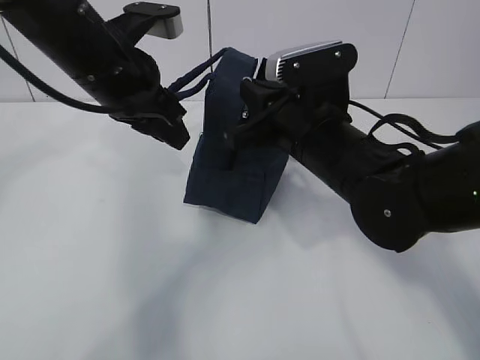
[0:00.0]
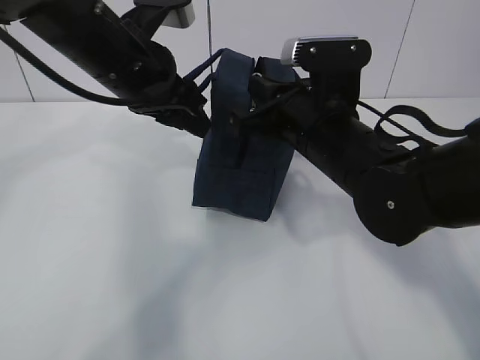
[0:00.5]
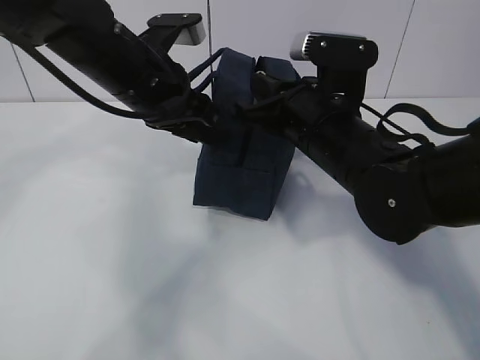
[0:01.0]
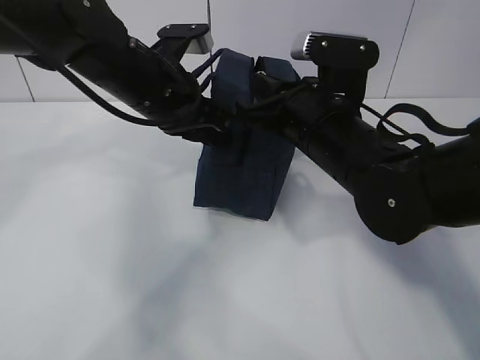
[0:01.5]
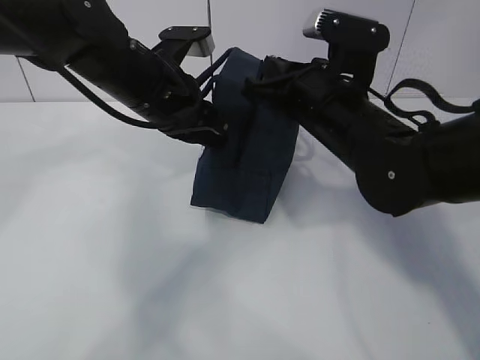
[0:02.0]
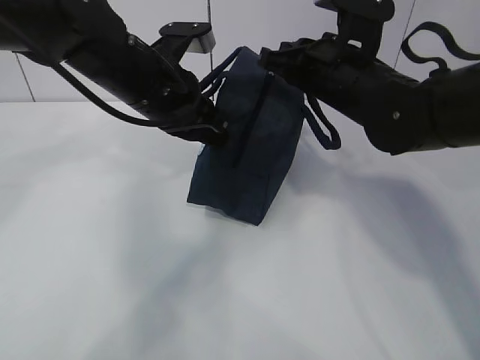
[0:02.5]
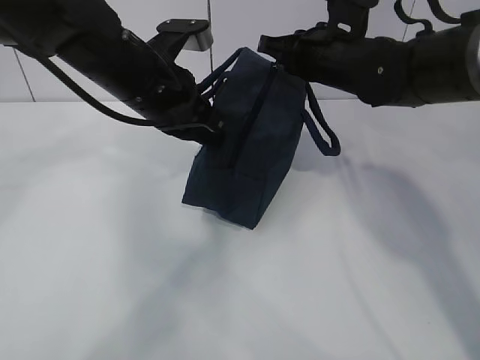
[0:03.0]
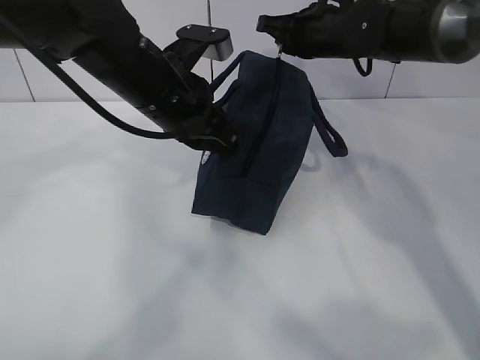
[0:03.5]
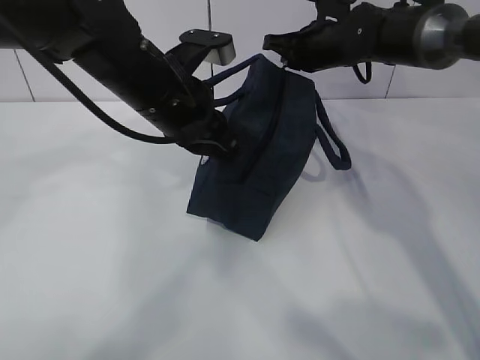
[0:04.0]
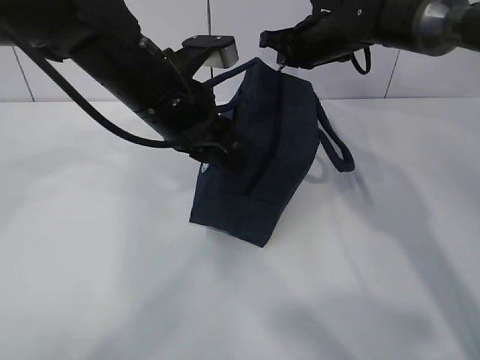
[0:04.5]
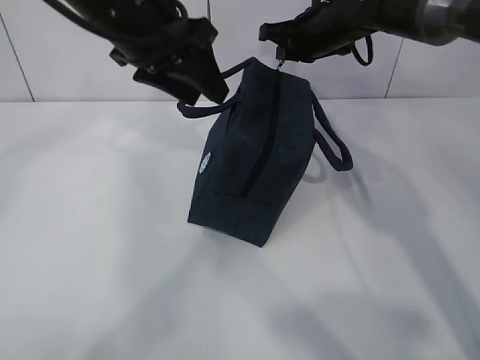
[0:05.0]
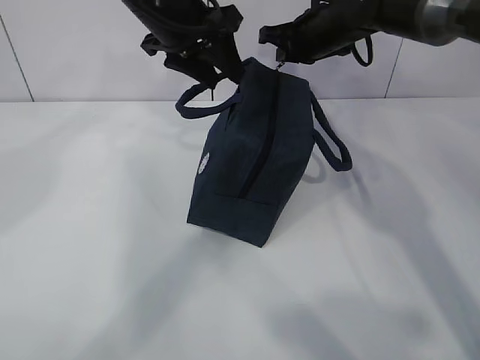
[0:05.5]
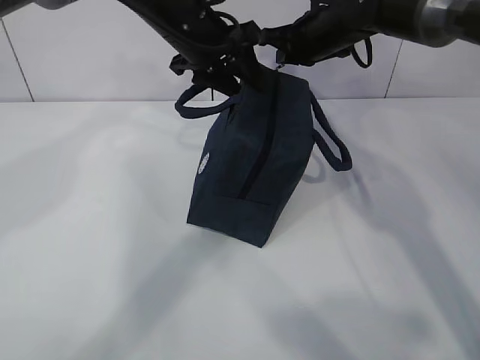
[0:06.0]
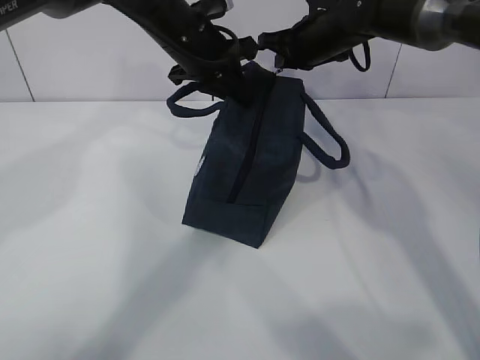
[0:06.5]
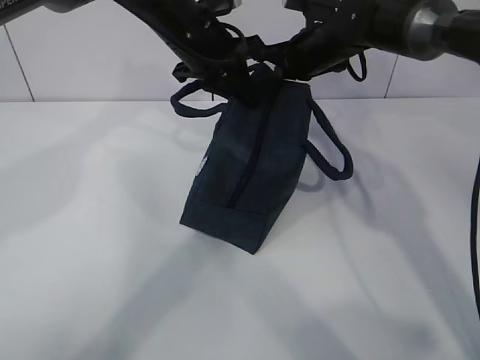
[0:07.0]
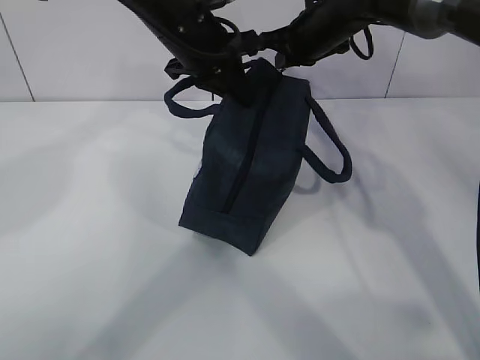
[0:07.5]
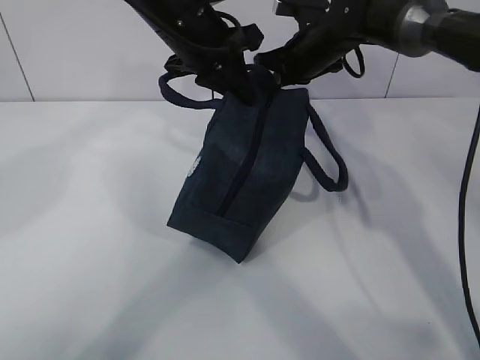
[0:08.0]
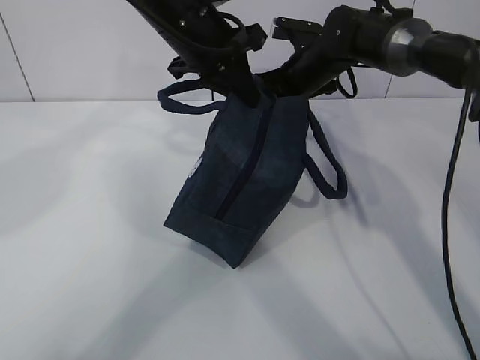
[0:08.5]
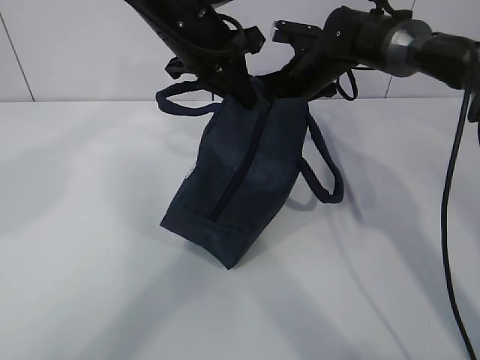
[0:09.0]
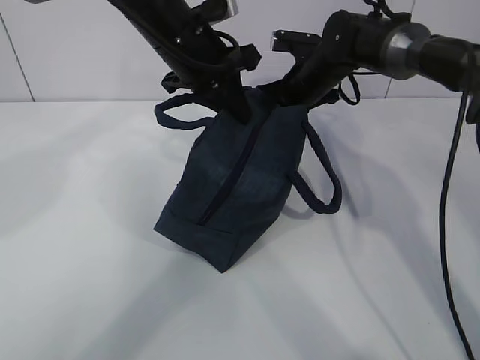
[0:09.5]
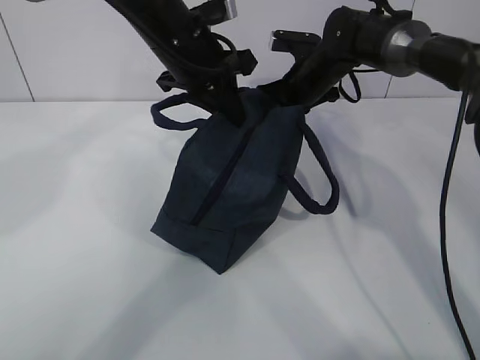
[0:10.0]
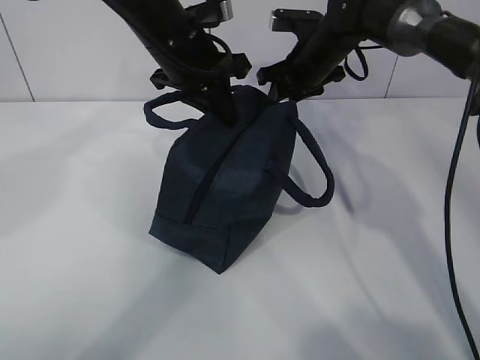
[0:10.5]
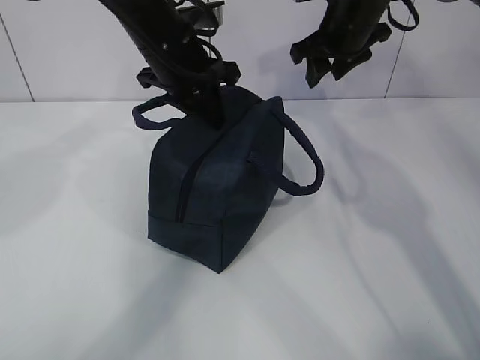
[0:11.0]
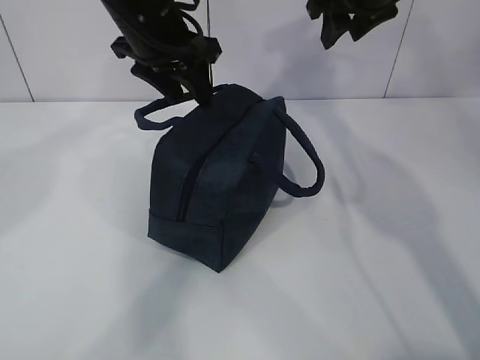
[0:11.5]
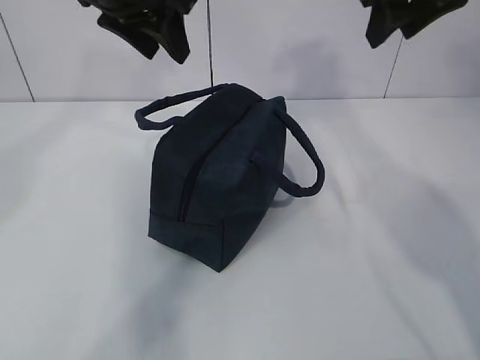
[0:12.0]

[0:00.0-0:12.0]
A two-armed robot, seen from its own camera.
0:00.0 to 0:02.0: The left gripper shifts by some 5 cm, and closes.
0:02.0 to 0:04.0: The right gripper heads forward, covering some 20 cm.
0:04.0 to 0:06.0: The left gripper goes approximately 10 cm forward, and opens up.
0:06.0 to 0:08.0: The left gripper closes its fingers.
0:08.0 to 0:10.0: The grippers stay close to where they were, moving slightly.
0:10.0 to 0:12.0: The left gripper moves upward, roughly 10 cm, and opens; the right gripper shifts about 25 cm upward and backward, and opens its fingers.

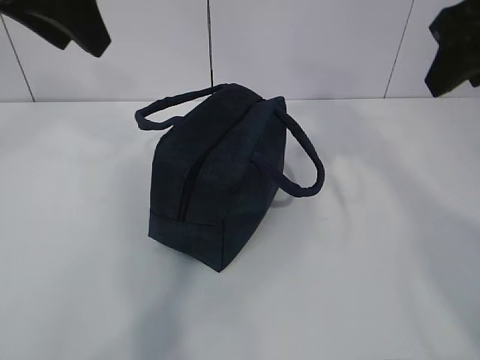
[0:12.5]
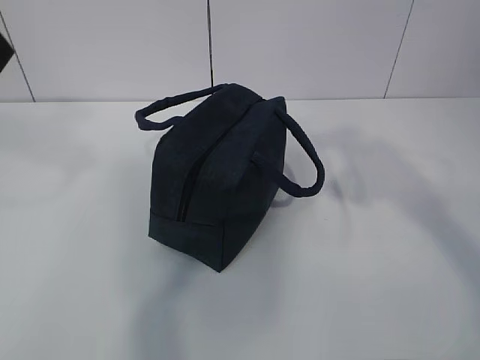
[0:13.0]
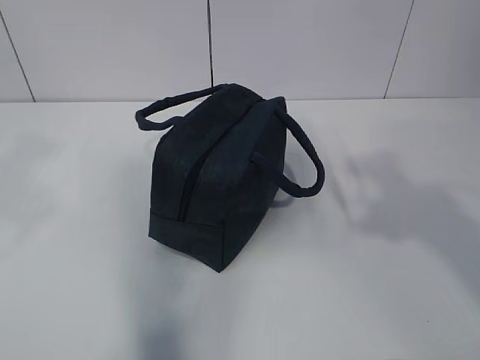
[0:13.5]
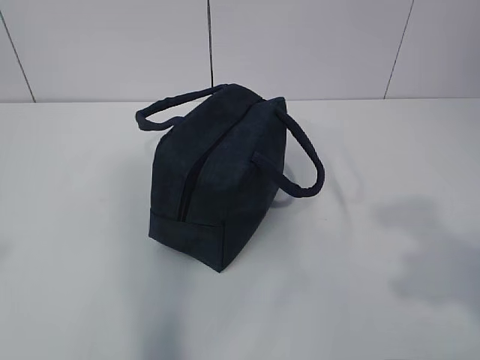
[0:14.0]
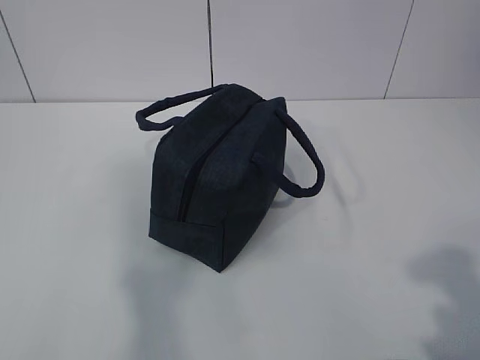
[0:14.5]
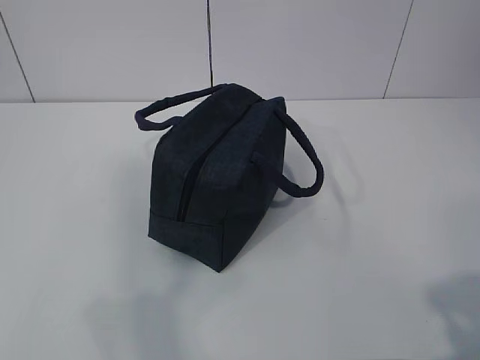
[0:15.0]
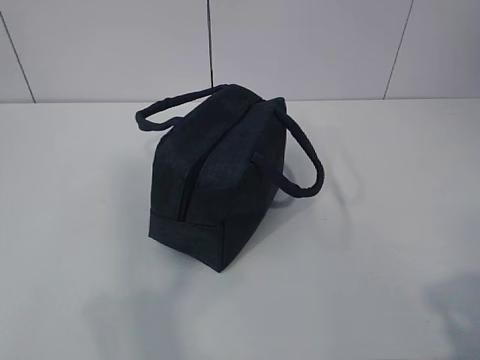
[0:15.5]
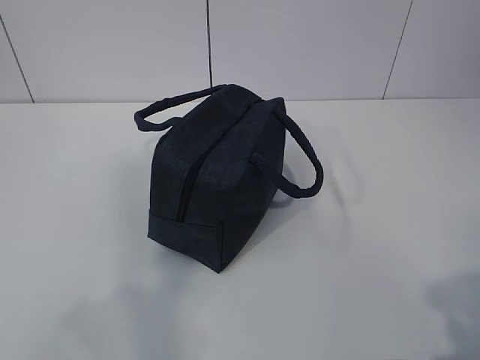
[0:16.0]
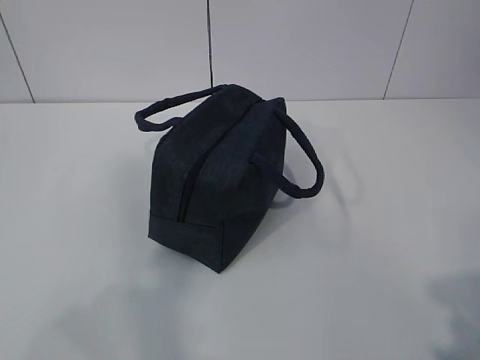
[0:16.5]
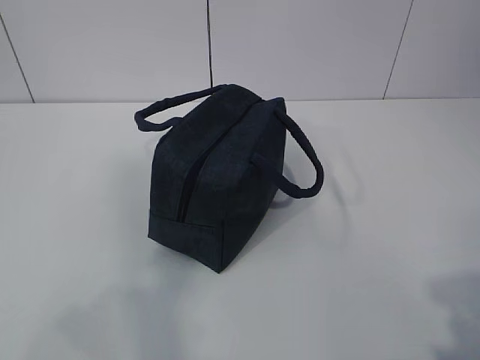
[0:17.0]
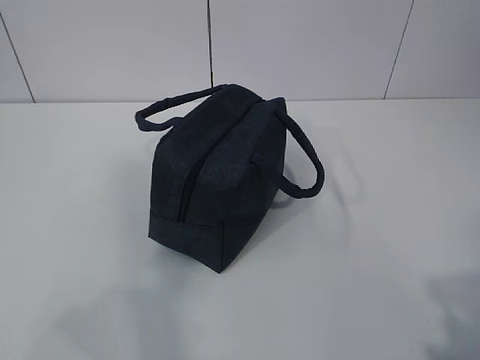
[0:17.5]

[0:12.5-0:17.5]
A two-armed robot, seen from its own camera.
0:12.5 to 0:15.0: The right gripper is displaced backward by approximately 30 cm; the left gripper moves backward and to the left, some 35 cm.
